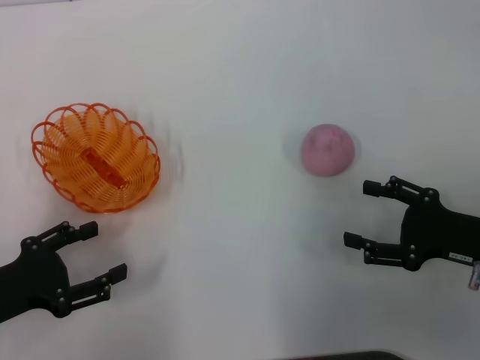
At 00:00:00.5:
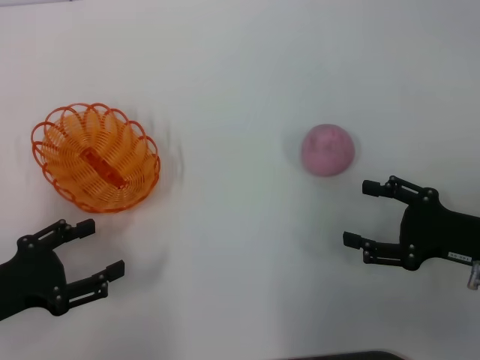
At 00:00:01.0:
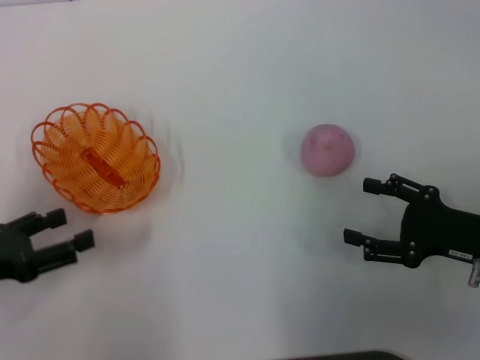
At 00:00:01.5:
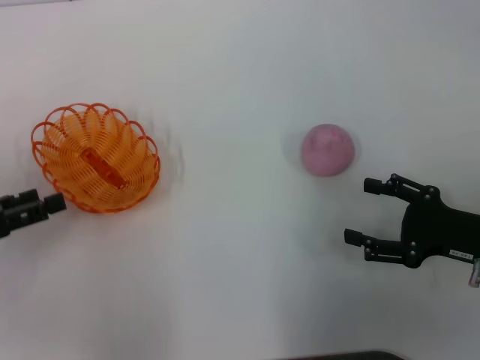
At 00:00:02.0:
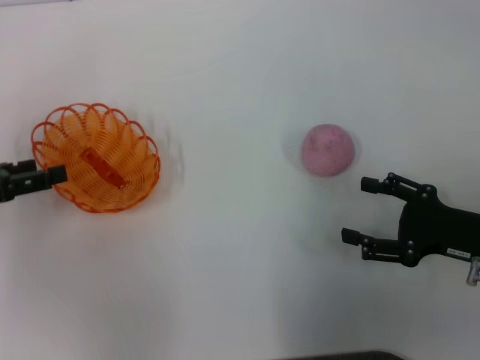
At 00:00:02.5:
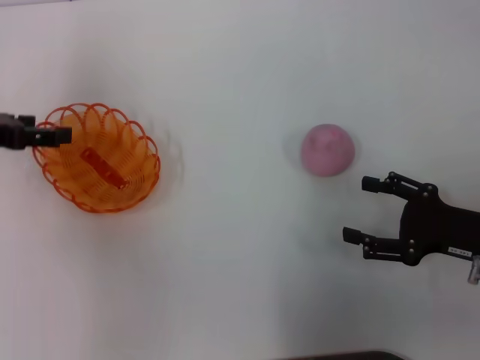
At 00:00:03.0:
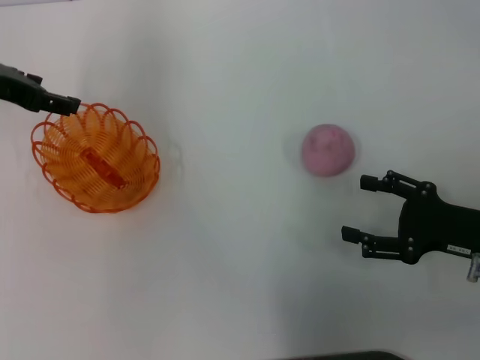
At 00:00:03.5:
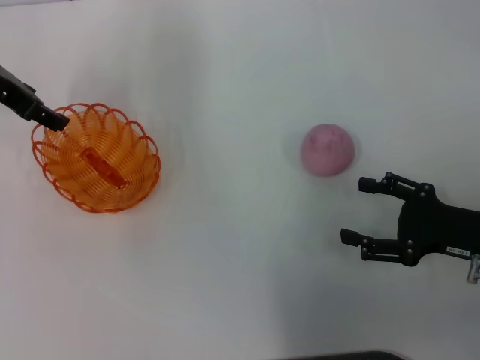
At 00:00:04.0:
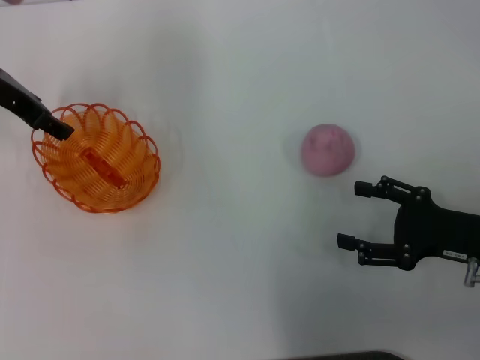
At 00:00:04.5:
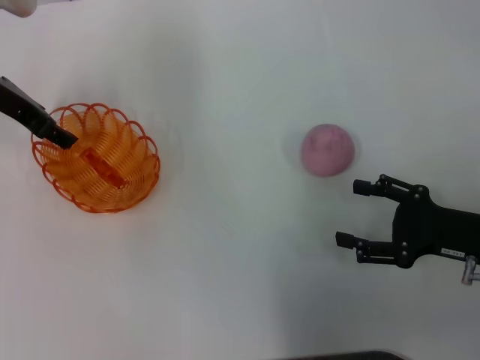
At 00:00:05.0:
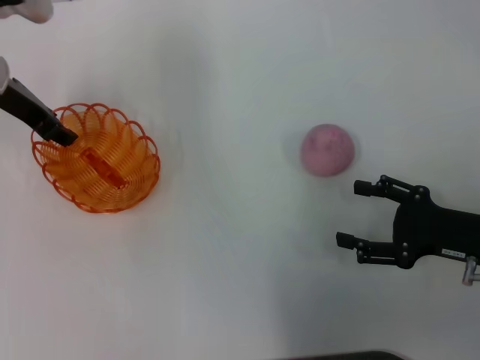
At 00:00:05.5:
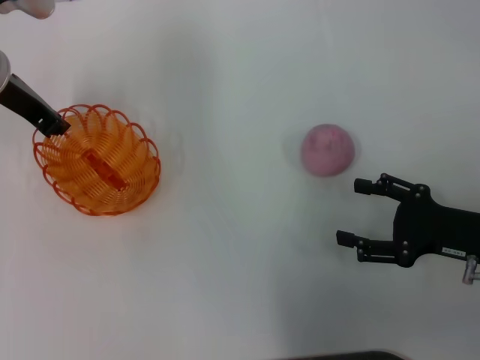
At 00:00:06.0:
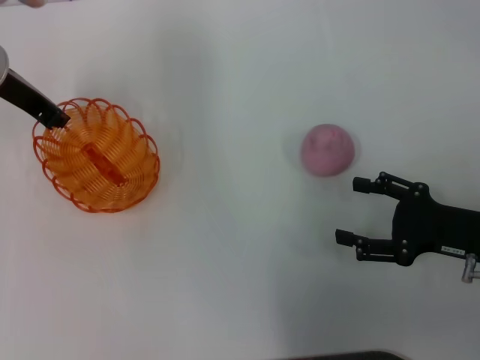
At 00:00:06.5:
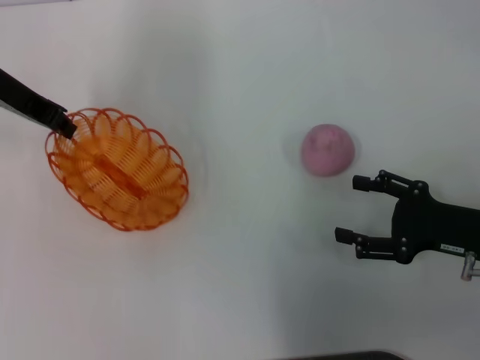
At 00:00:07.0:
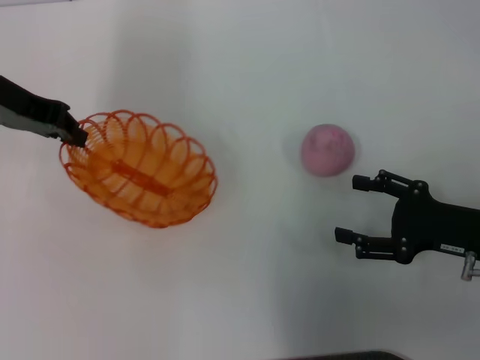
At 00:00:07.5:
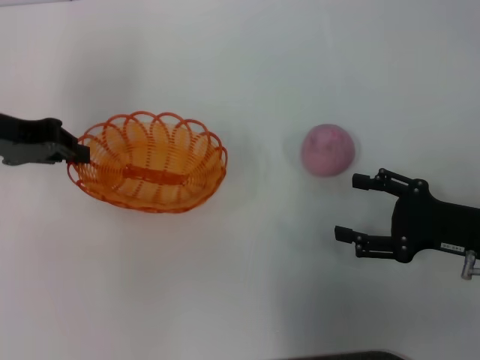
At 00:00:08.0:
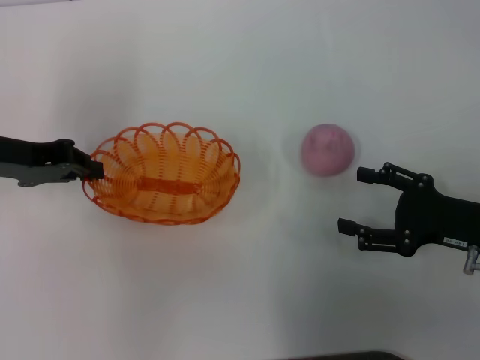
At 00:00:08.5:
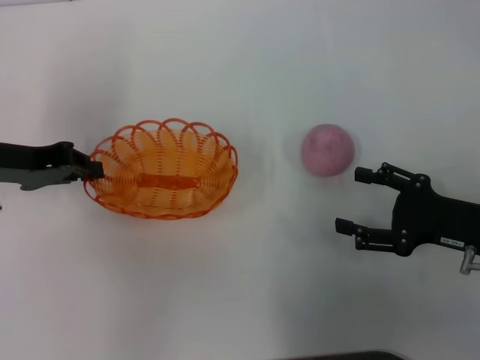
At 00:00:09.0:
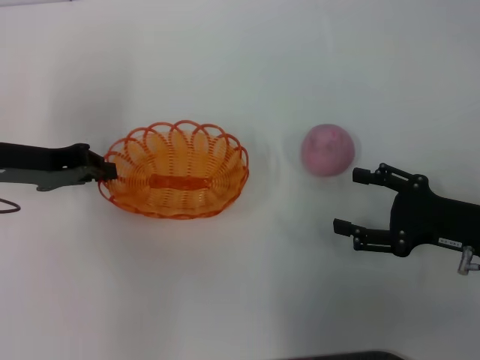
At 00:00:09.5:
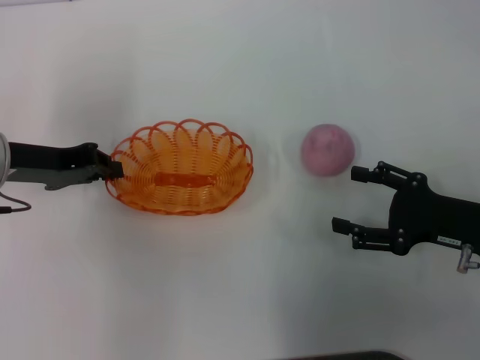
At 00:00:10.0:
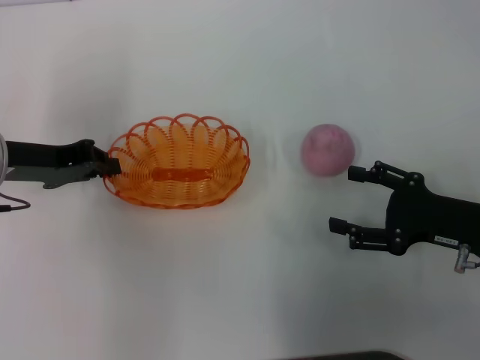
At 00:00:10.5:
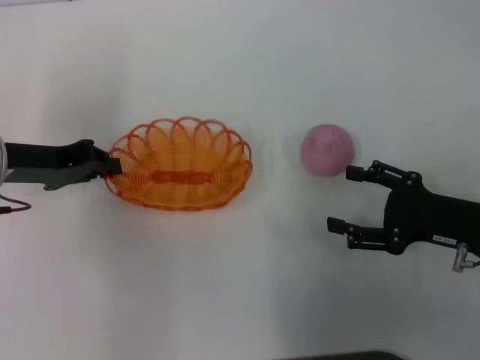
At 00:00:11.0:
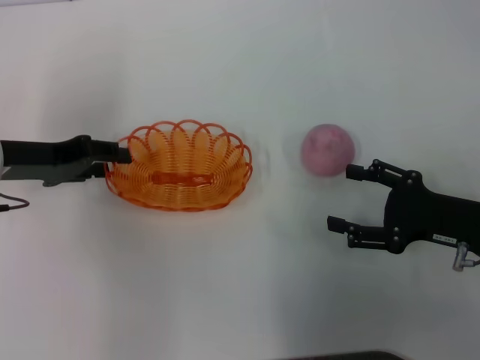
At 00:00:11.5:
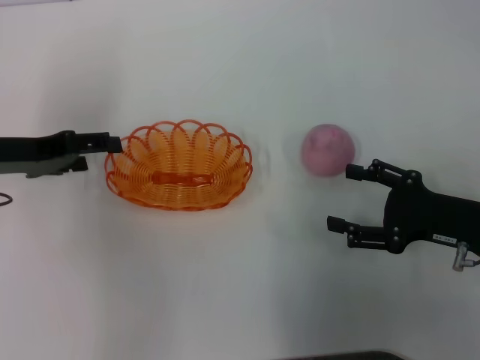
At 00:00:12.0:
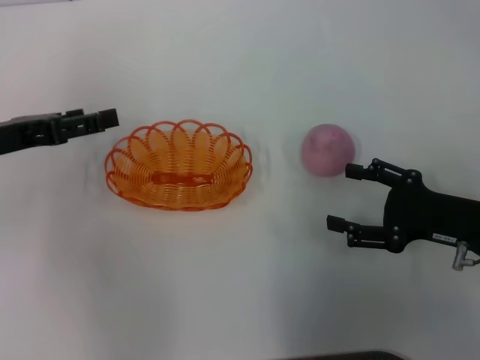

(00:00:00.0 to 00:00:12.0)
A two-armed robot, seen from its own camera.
Step, 00:00:00.0 - 00:00:07.5: Pick up the basket with the left gripper.
00:00:00.0 - 00:00:02.0: The left gripper shifts some 10 cm forward and upward.
00:00:02.0 - 00:00:04.0: The left gripper shifts some 20 cm forward, to the right and upward.
00:00:04.0 - 00:00:06.0: The left gripper closes.
00:00:06.0 - 00:00:08.0: The left gripper shifts about 10 cm backward.
00:00:08.0 - 00:00:10.0: The grippers make only small movements.
00:00:10.0 - 00:00:12.0: The left gripper opens.

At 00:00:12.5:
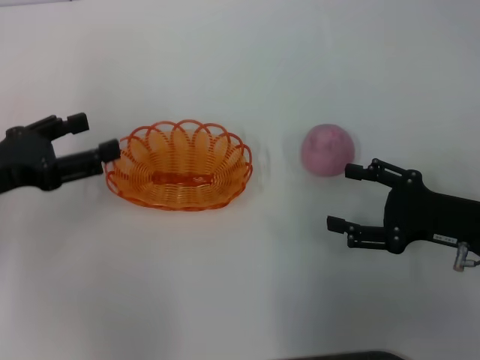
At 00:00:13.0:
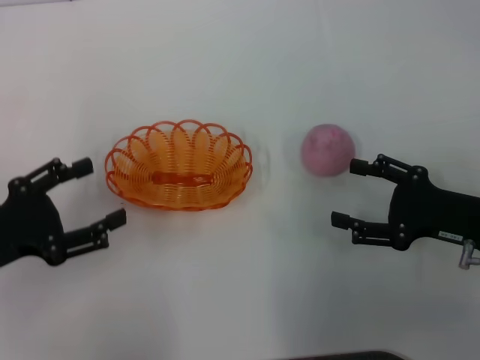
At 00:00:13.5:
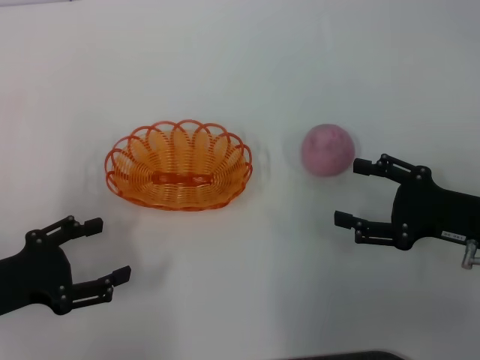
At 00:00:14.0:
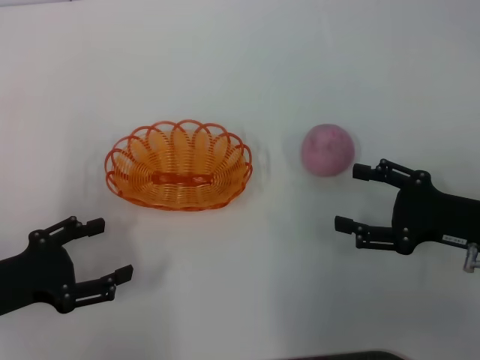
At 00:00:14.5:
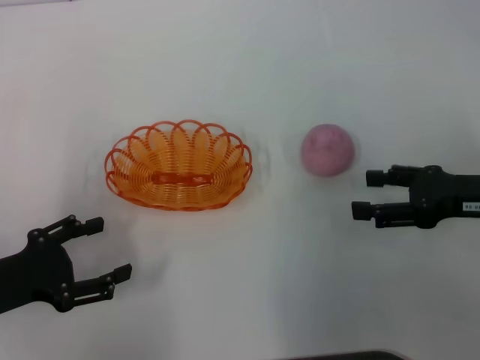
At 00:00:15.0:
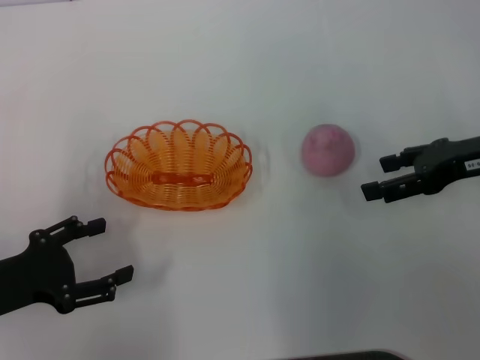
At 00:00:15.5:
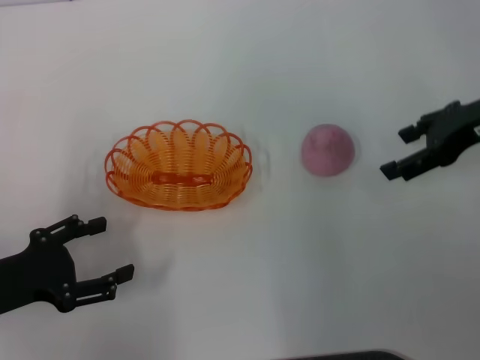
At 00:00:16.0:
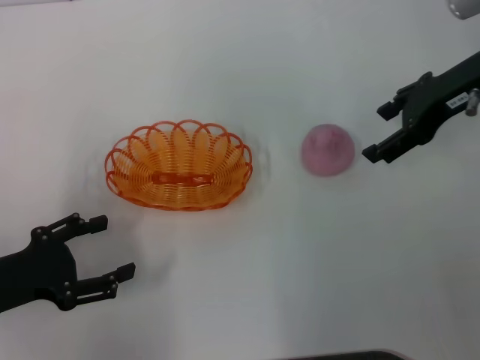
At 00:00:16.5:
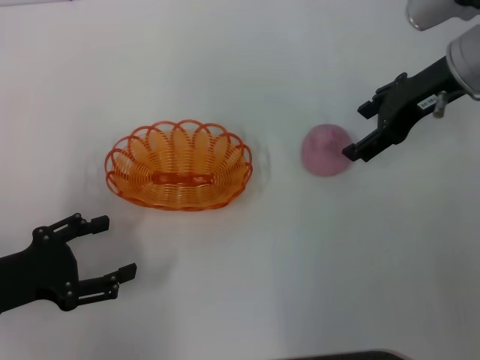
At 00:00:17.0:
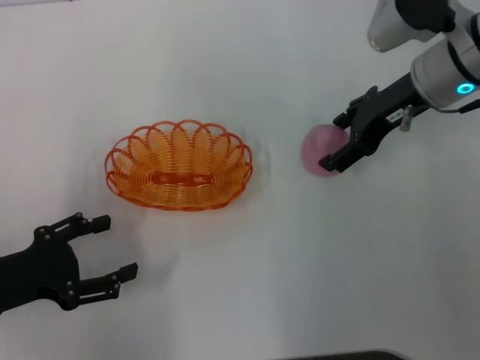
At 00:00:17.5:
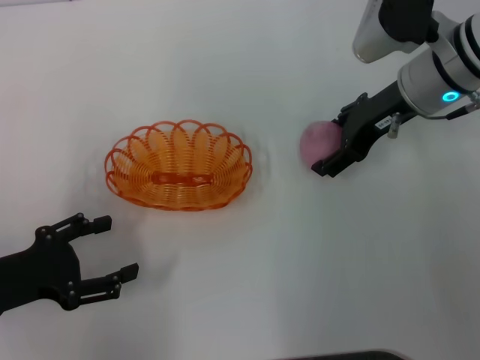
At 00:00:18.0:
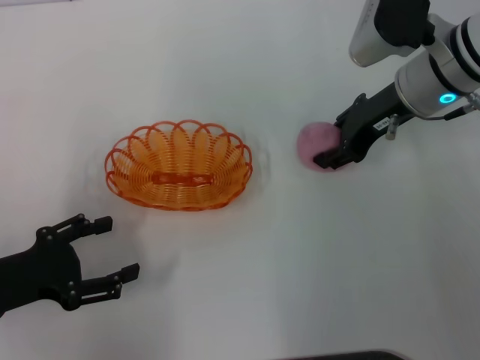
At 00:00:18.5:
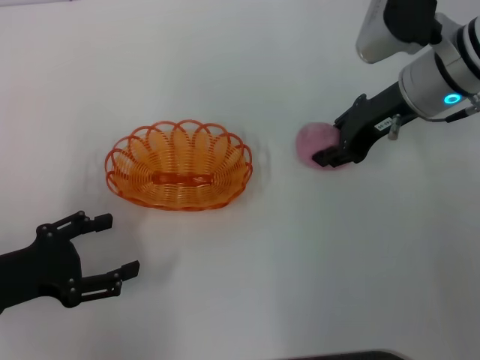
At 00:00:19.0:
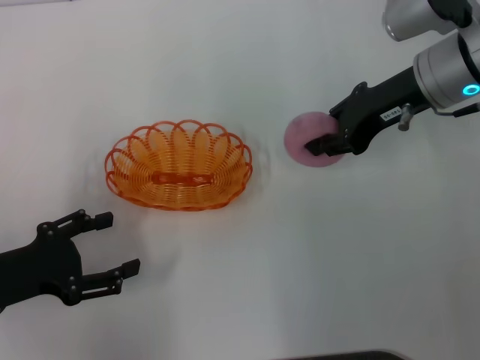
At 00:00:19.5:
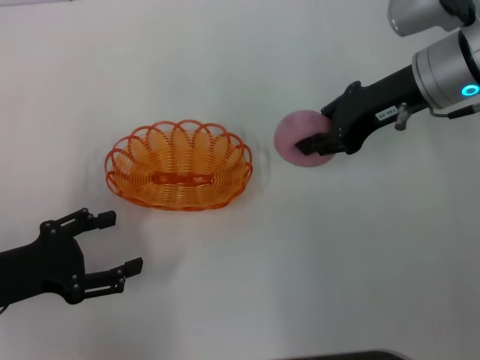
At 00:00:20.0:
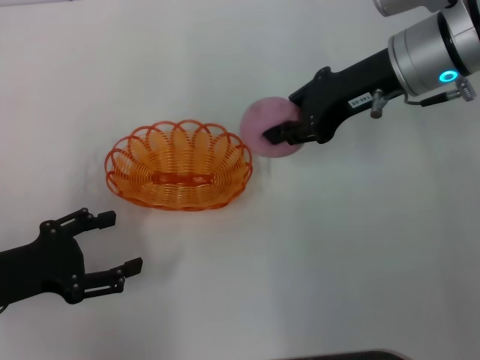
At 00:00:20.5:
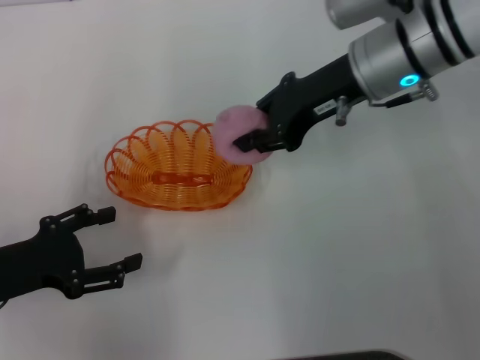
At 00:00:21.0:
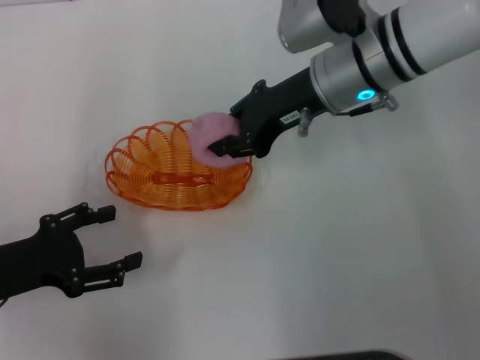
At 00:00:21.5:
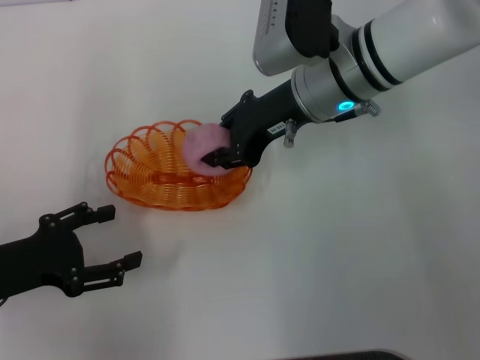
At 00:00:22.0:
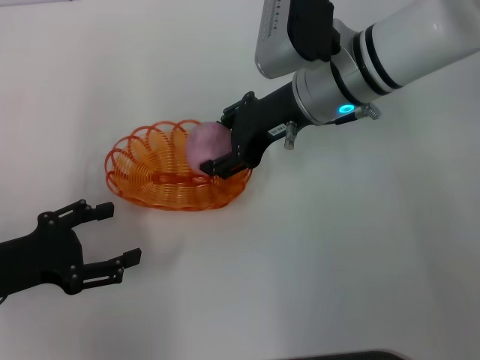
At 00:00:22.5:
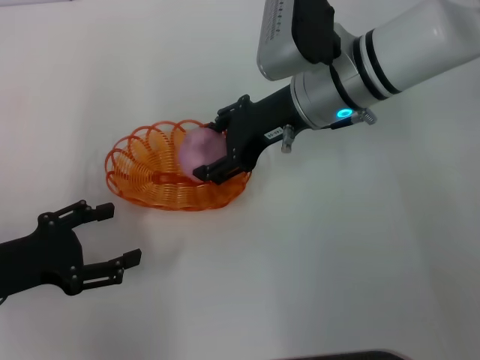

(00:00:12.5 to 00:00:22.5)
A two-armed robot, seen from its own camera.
Step, 00:00:13.5 - 00:00:19.5: Pick up the peach with the right gripper.
00:00:12.5 - 00:00:14.5: The left gripper moves backward and downward, approximately 10 cm, while the right gripper ends up approximately 5 cm from where it was.
00:00:14.5 - 00:00:16.5: The right gripper moves forward, upward and to the left, some 15 cm.
00:00:16.5 - 00:00:18.5: The right gripper closes its fingers.
00:00:18.5 - 00:00:20.5: The right gripper travels to the left by roughly 5 cm.
00:00:20.5 - 00:00:22.5: The right gripper moves some 5 cm, and opens.

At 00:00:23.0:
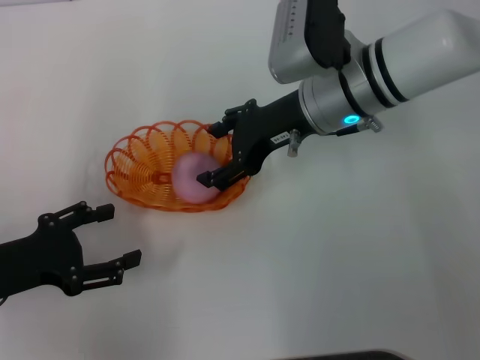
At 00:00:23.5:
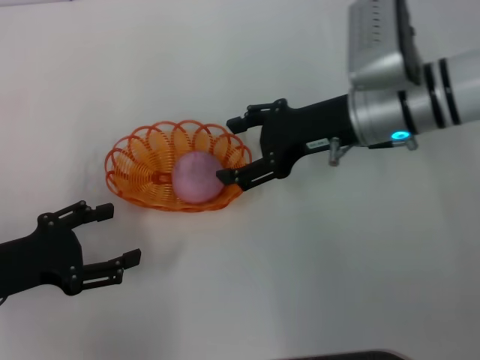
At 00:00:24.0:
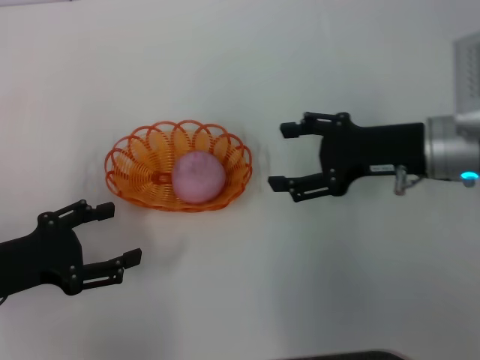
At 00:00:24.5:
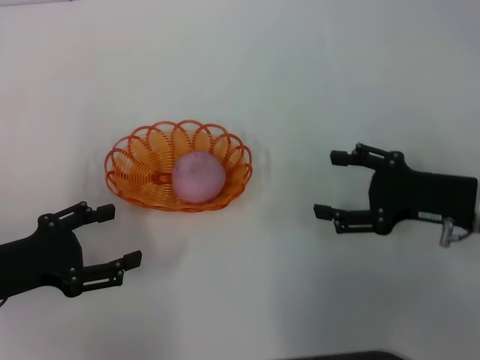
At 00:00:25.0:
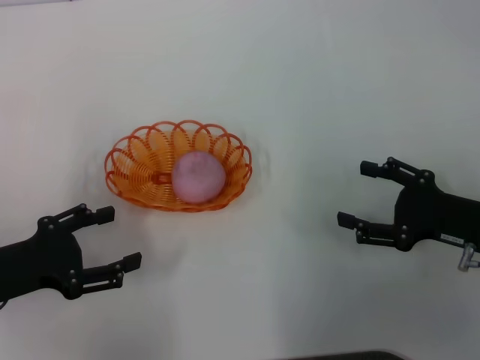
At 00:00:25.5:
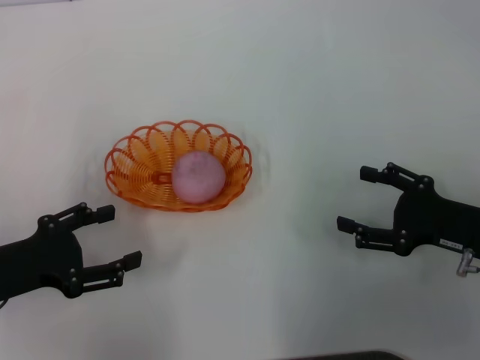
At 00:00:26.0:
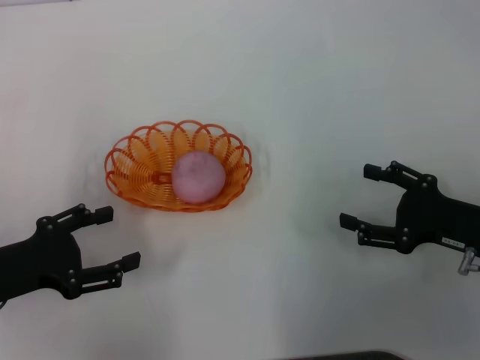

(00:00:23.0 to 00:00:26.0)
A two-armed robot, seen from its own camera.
00:00:23.0 - 00:00:24.5: The right gripper goes roughly 20 cm to the right, backward and downward.
00:00:24.5 - 00:00:26.0: The right gripper ends up about 5 cm from where it was.
